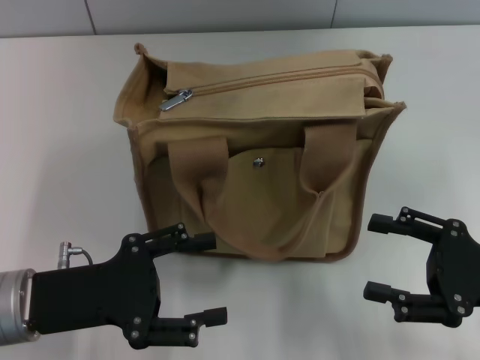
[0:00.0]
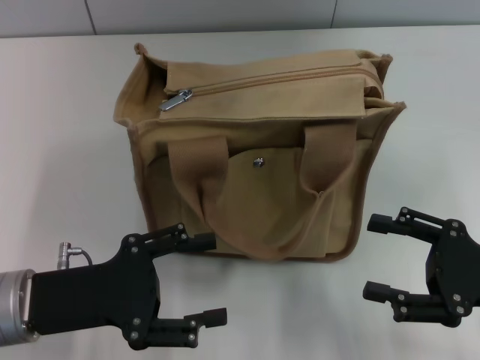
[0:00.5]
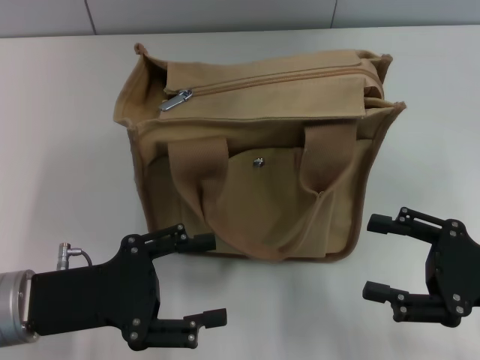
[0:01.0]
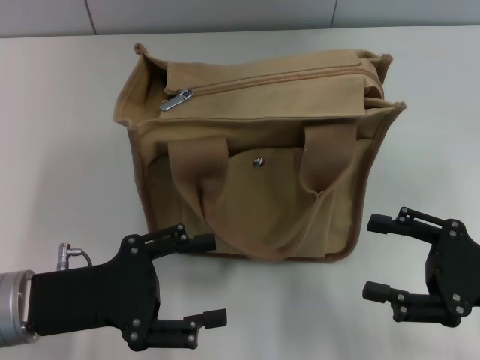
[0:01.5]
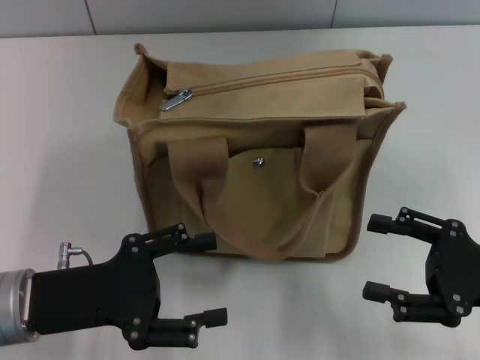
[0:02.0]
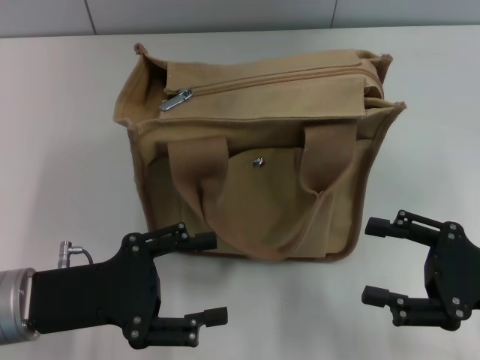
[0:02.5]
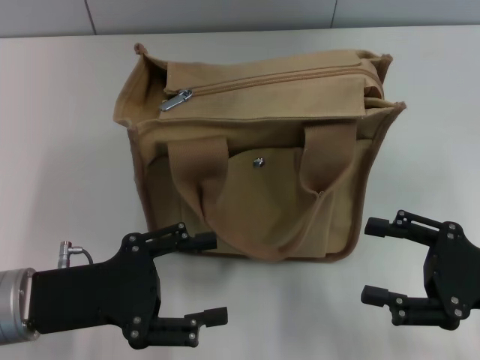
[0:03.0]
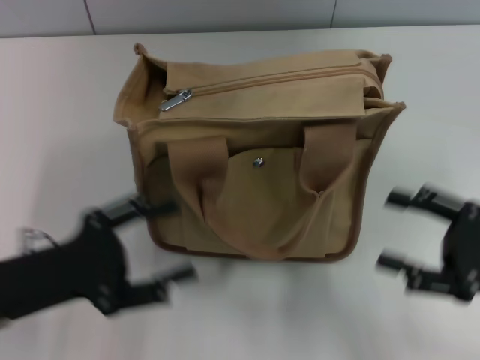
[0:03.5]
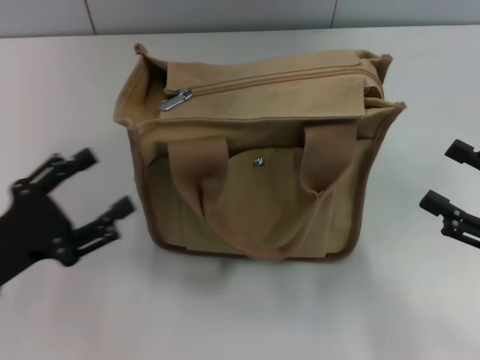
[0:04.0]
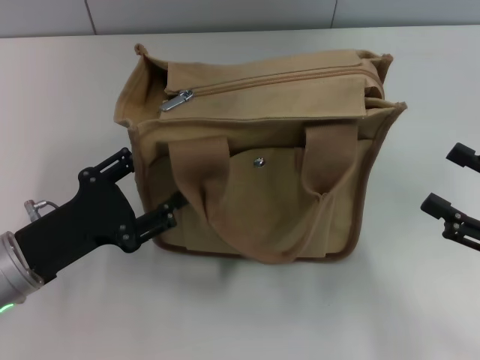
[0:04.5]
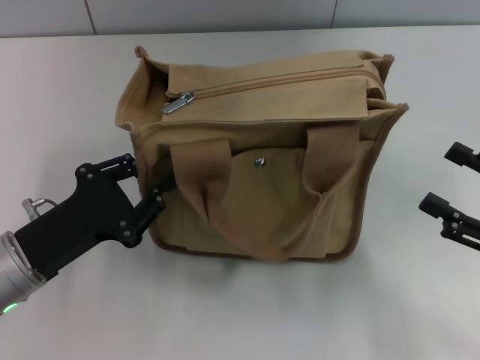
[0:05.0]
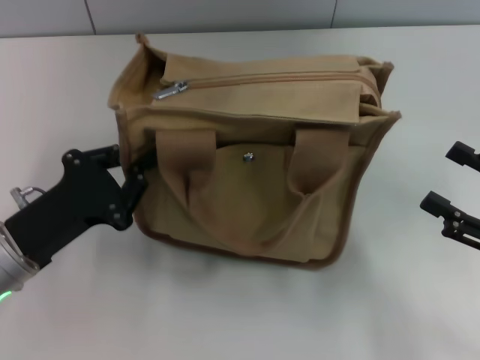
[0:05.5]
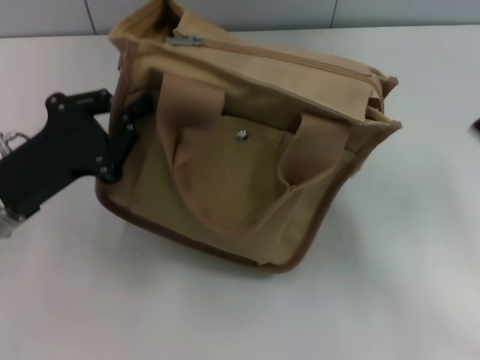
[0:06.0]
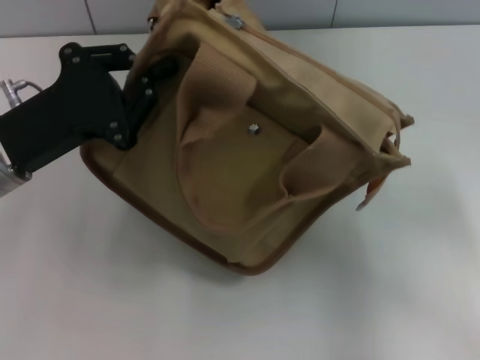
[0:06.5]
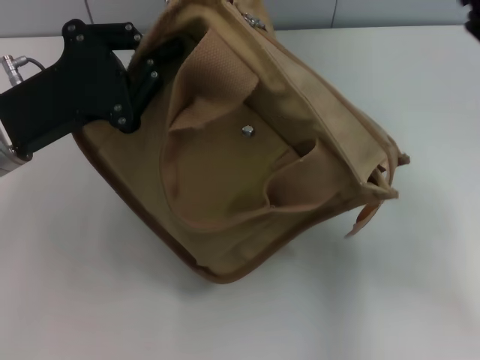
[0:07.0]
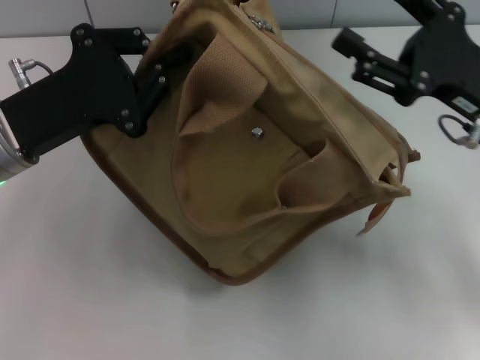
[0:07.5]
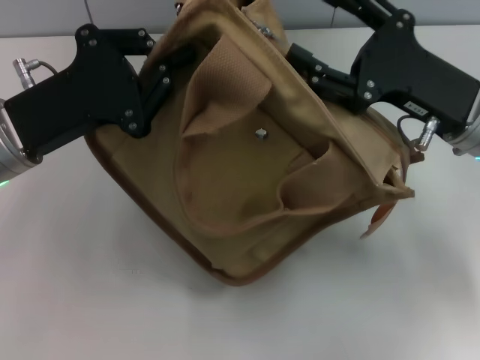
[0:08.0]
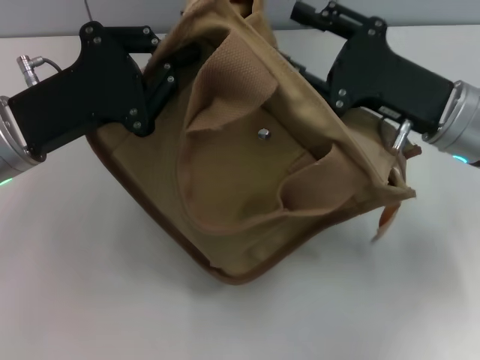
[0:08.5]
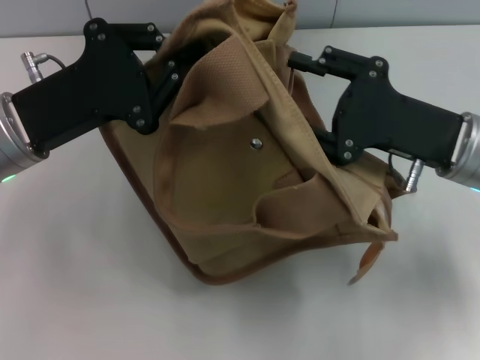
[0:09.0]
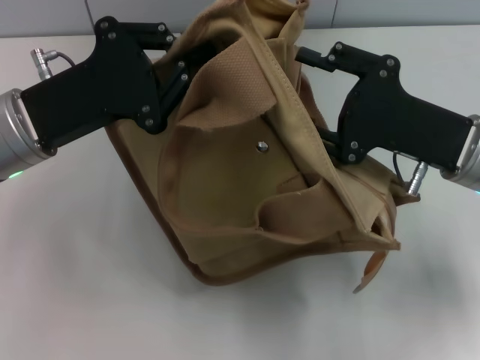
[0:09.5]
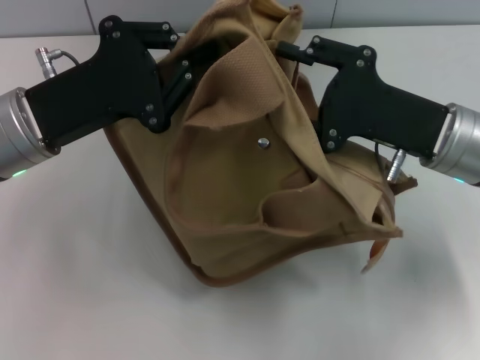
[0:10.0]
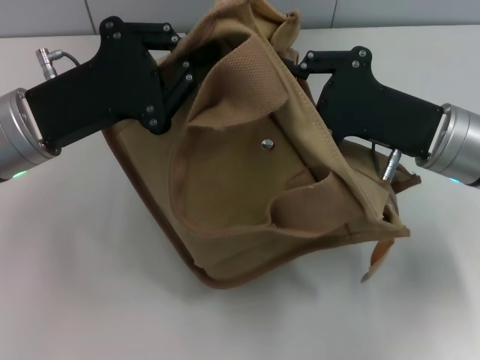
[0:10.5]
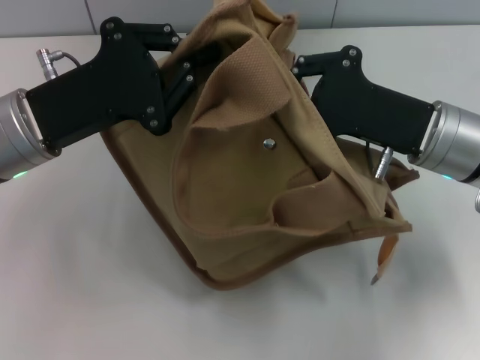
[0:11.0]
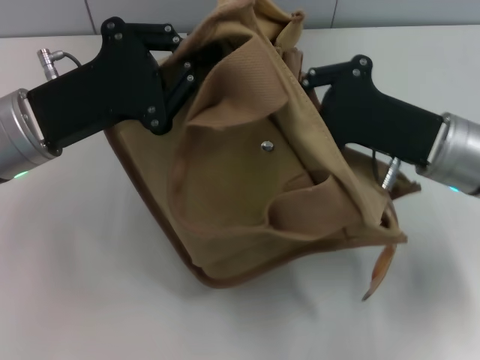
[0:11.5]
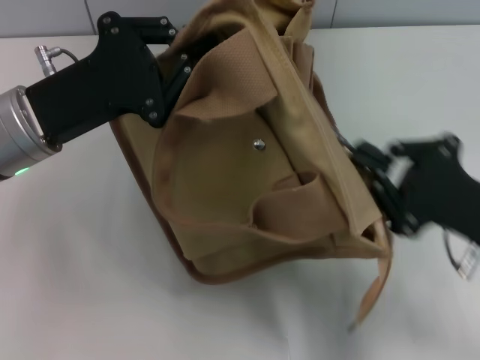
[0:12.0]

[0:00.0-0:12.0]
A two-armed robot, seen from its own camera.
0:00.0 to 0:02.0: The two grippers keep their place.
0:02.0 to 0:04.0: The left gripper shifts roughly 5 cm to the left.
0:04.0 to 0:06.0: The left gripper travels forward by some 5 cm, and closes up.
0:06.0 to 0:08.0: The right gripper heads forward and to the left, covering approximately 15 cm, while the left gripper ends up approximately 5 cm from where it was.
0:10.0 to 0:12.0: The right gripper moves backward and to the right, roughly 10 cm, and closes up.

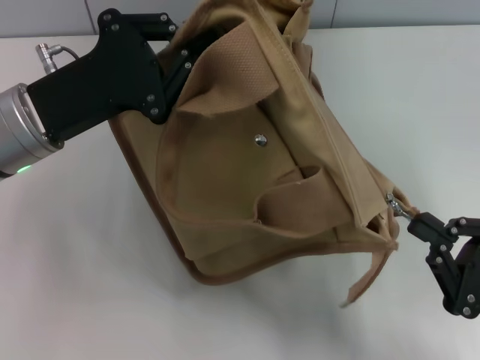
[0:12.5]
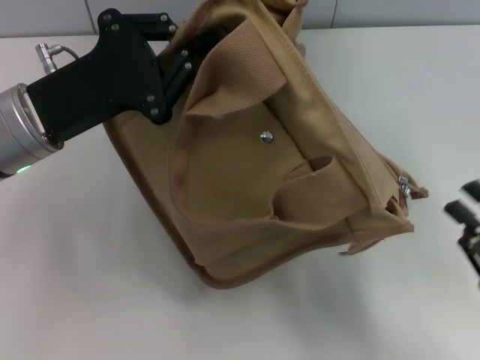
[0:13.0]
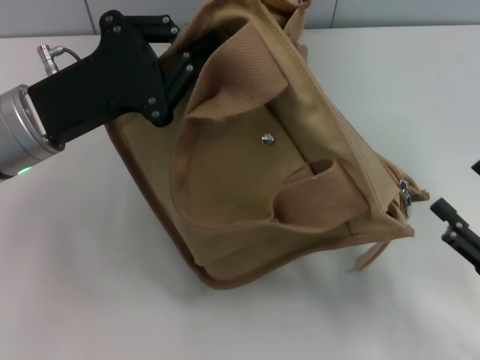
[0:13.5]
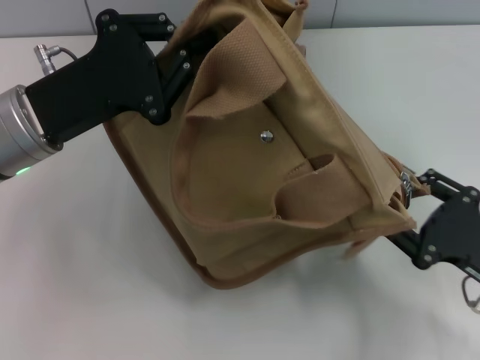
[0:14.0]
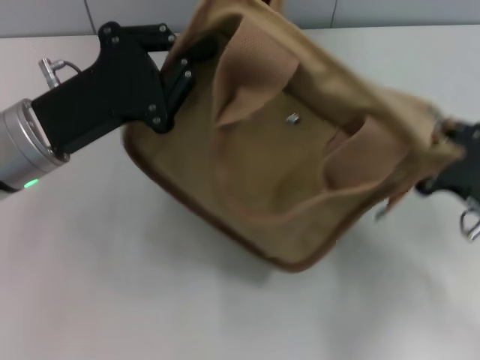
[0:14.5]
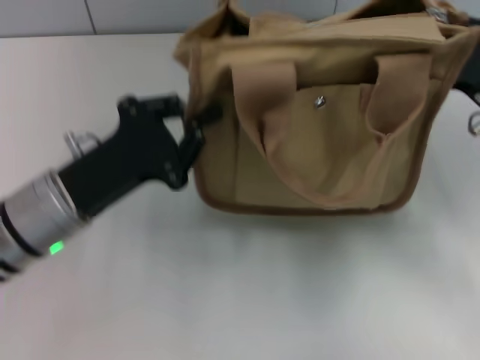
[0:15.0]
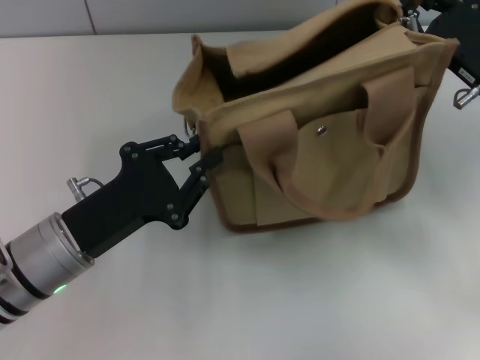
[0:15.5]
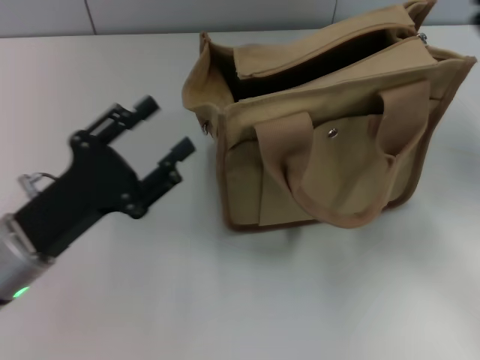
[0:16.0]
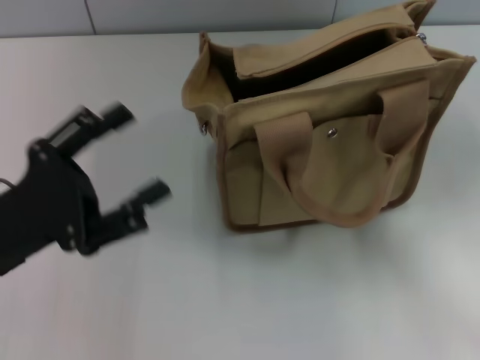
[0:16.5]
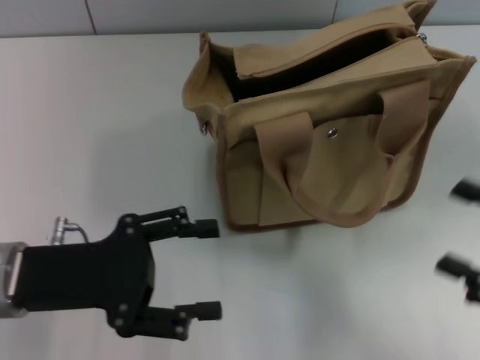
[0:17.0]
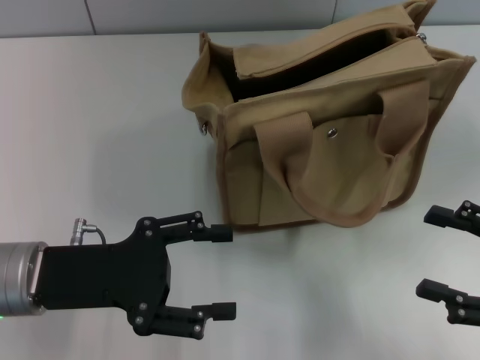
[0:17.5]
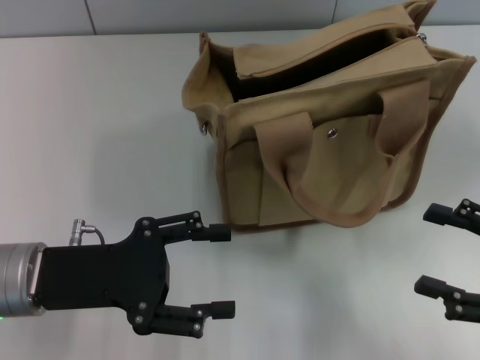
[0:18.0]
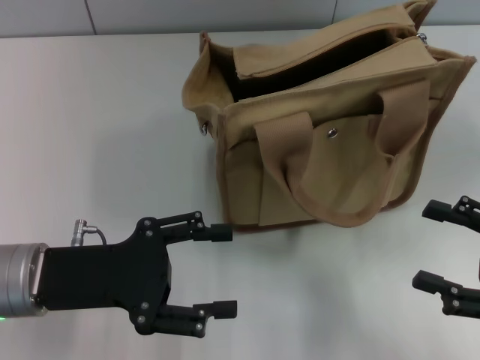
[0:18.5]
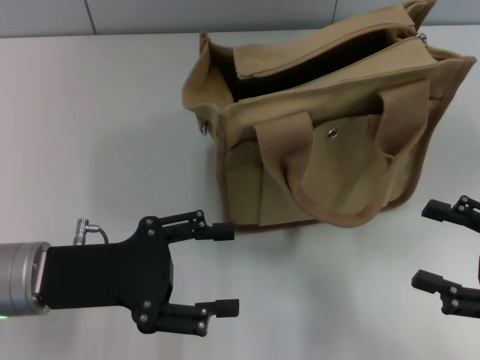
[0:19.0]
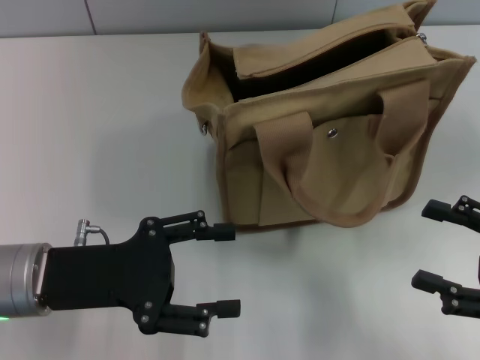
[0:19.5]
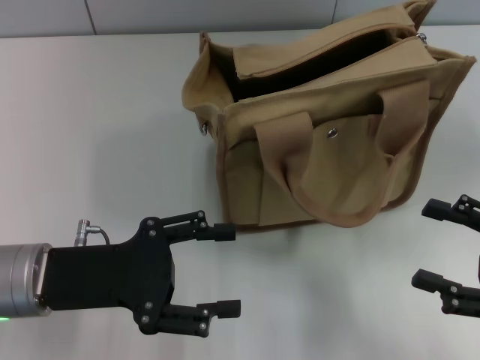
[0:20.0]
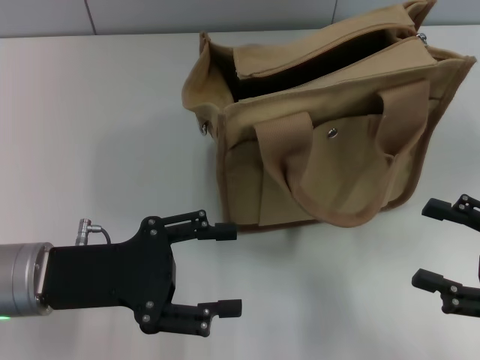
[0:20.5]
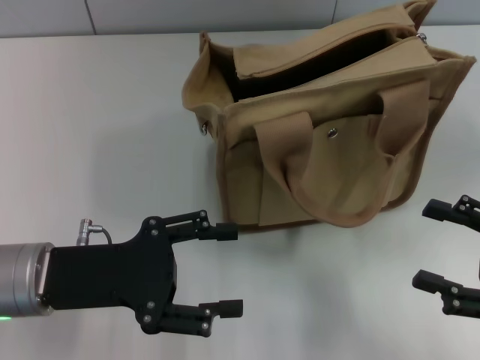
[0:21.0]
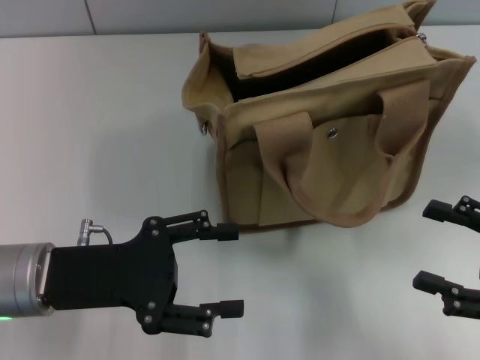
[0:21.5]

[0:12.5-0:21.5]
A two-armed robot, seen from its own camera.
Step, 0:13.0 to 0:15.5: Grab the bag with your left hand.
0:12.5 to 0:14.5: The right gripper moves forward, approximately 10 cm, and opens, then closes again.
0:14.5 to 0:17.0: The right gripper is displaced backward and to the right by about 10 cm, and opens up. The left gripper is displaced backward by approximately 10 cm, and opens.
0:17.0 to 0:19.5: There are only small adjustments of the grippers.
0:19.5 to 0:21.5: The two grippers keep their place.

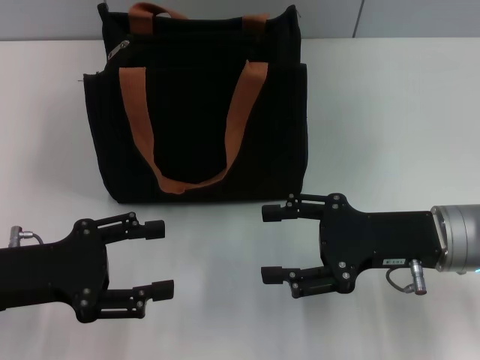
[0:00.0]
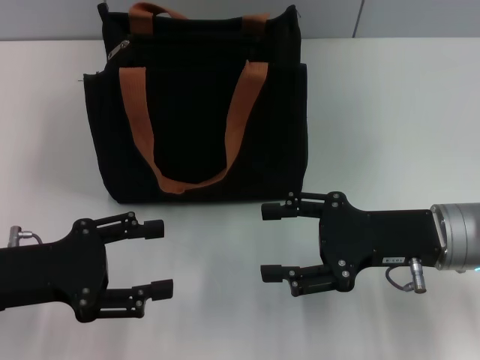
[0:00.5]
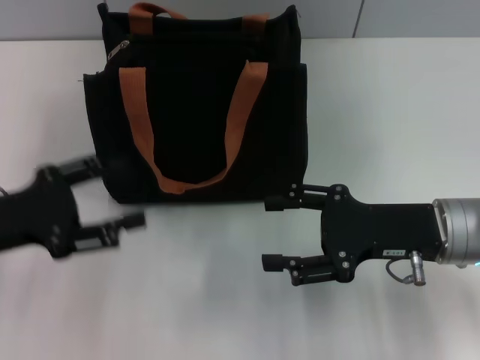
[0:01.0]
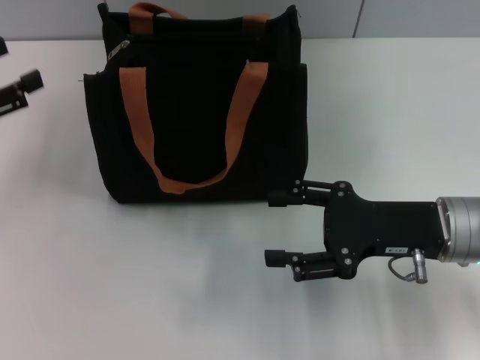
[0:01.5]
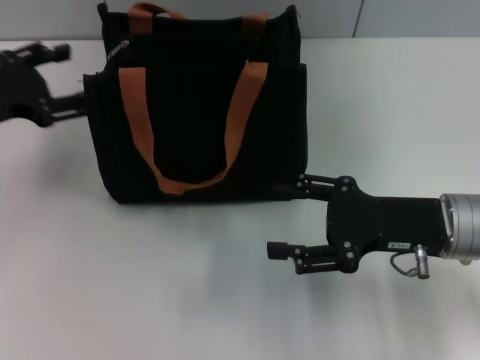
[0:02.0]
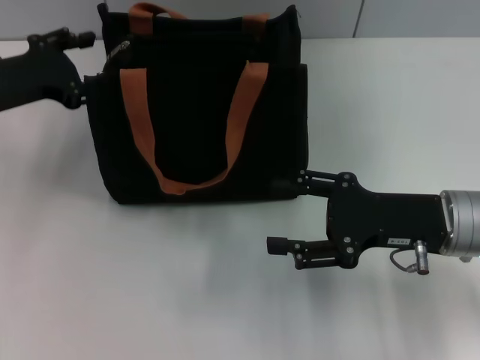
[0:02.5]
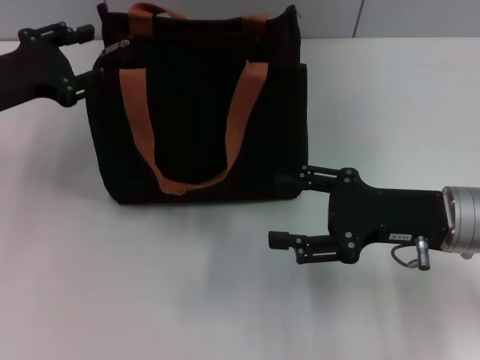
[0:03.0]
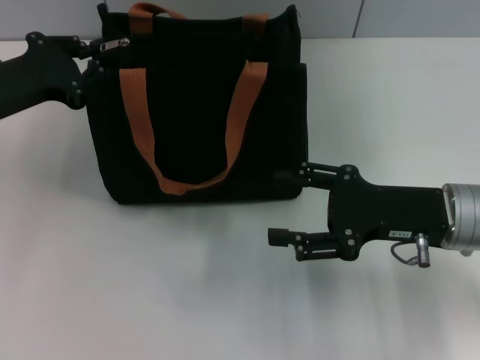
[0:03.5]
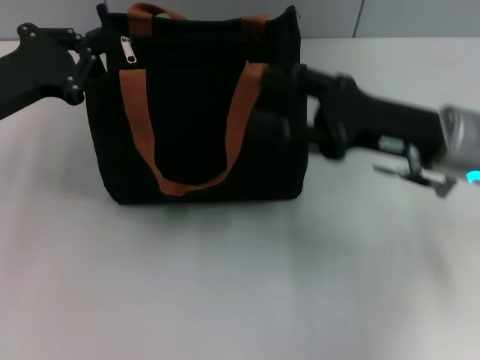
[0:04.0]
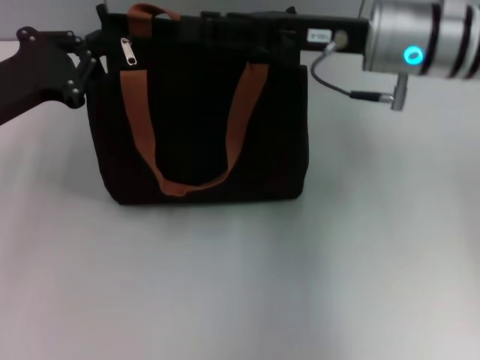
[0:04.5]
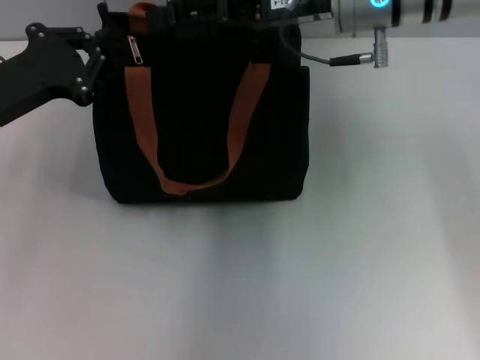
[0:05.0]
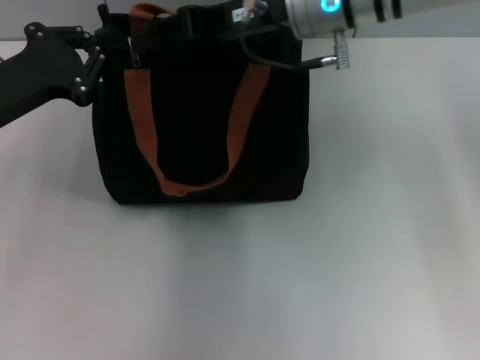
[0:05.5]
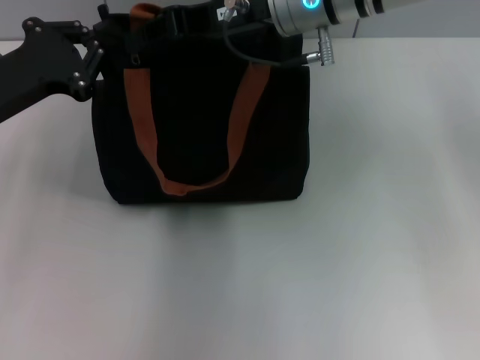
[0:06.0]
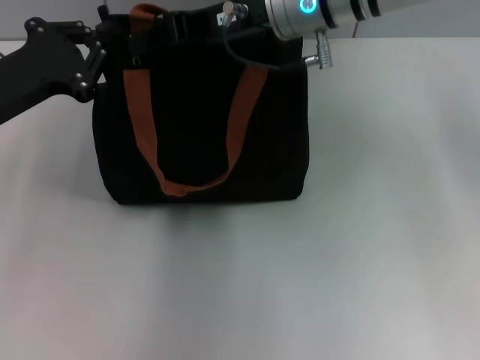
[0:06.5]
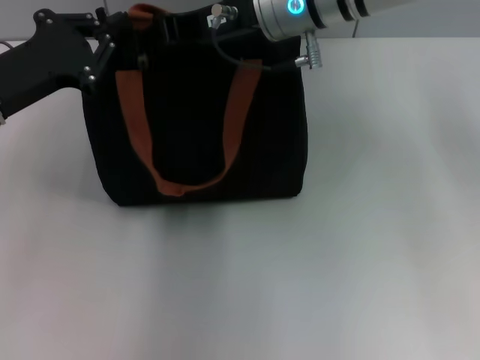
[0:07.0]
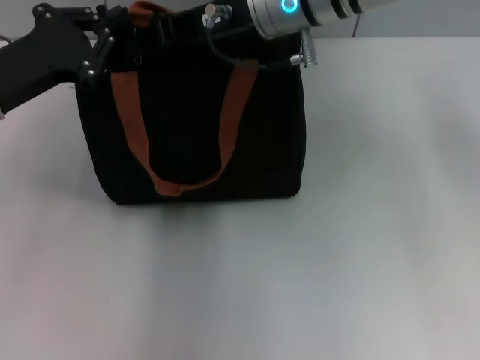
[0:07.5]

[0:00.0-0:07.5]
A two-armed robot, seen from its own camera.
0:00.0 to 0:02.0: The left gripper travels forward by about 10 cm.
0:02.0 to 0:04.0: The left gripper closes. The right gripper ends up some 5 cm from where it was.
0:04.0 to 0:05.5: The right gripper heads to the left, forward and upward, covering some 20 cm.
0:05.5 to 0:07.5: The right gripper closes.
